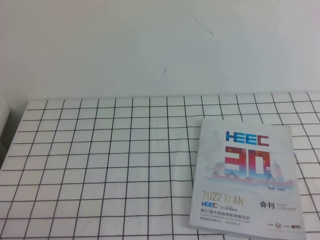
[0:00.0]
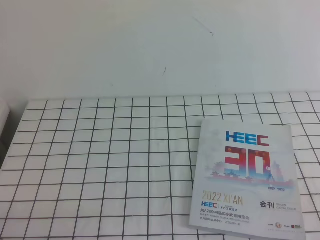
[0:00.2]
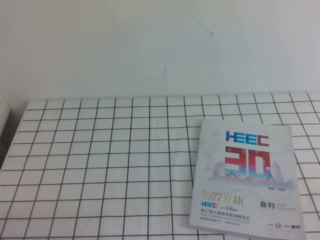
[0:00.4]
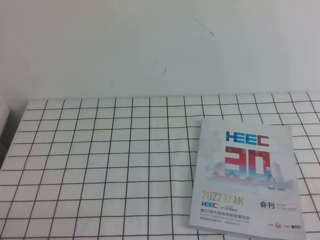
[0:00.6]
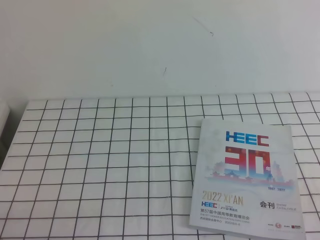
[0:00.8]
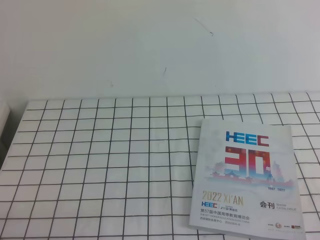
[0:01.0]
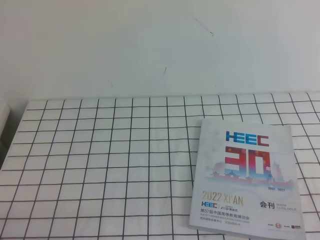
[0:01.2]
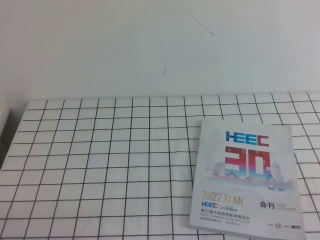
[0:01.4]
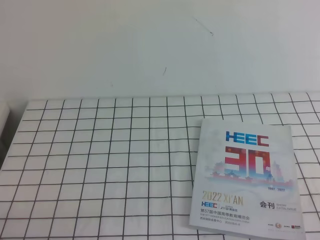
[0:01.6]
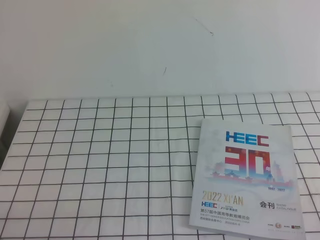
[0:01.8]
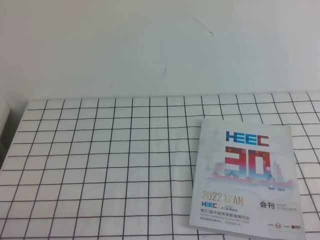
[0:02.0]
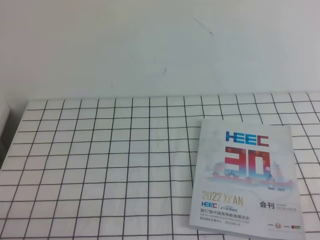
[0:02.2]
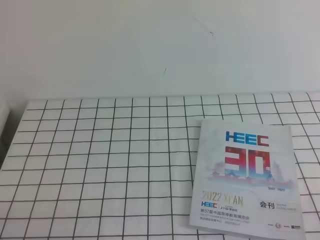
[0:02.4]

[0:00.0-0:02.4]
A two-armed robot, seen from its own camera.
Task of the whole recording: on the white tablecloth, hold the book with one hand and close it with the other.
0:00.0 to 0:01.2: Both grippers stay about where they are.
